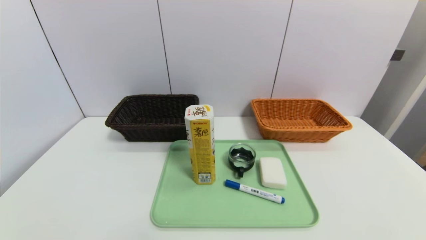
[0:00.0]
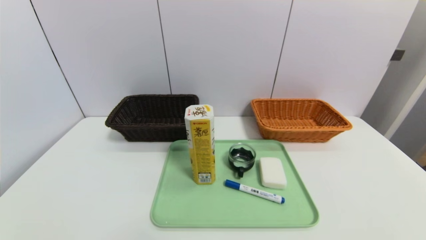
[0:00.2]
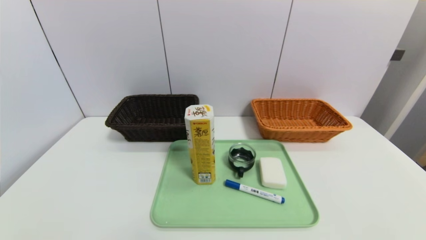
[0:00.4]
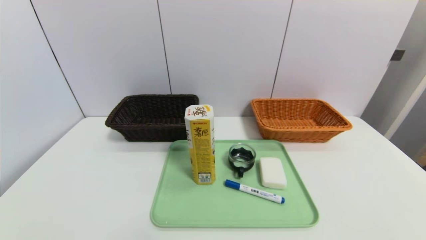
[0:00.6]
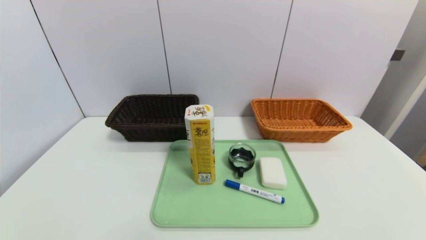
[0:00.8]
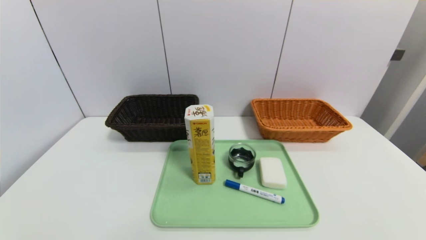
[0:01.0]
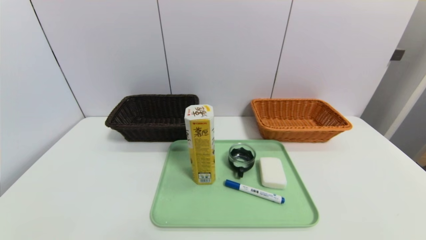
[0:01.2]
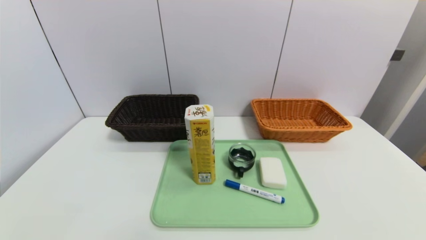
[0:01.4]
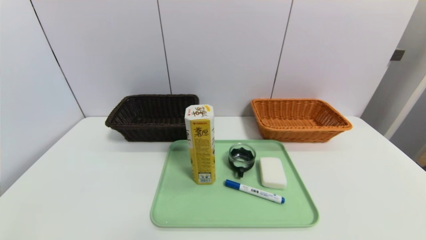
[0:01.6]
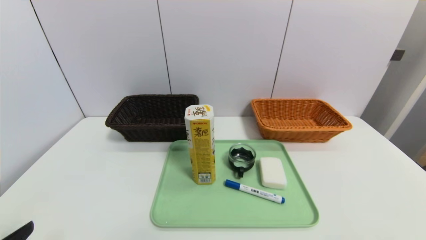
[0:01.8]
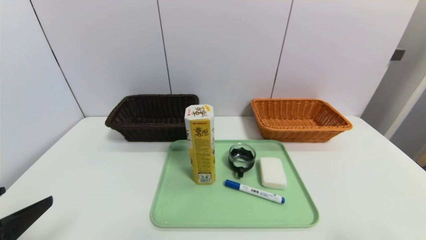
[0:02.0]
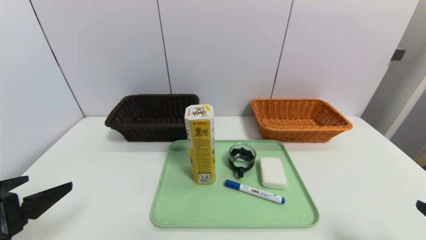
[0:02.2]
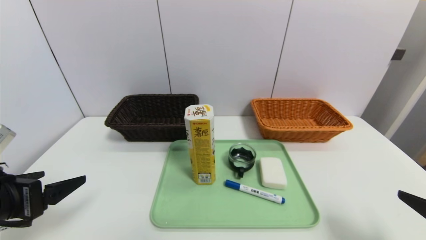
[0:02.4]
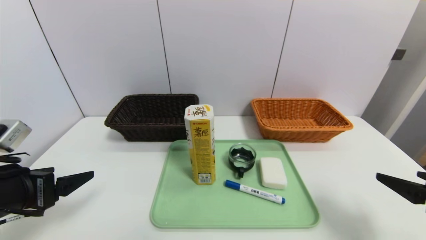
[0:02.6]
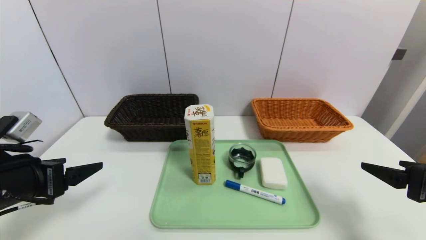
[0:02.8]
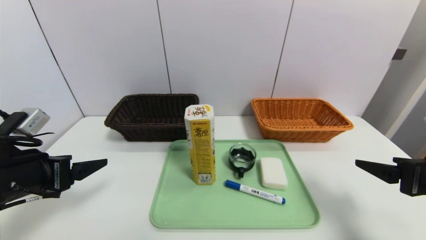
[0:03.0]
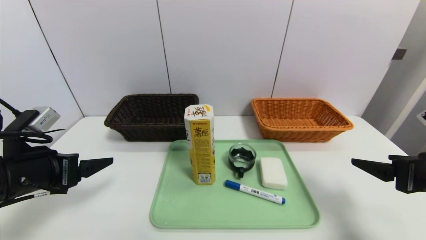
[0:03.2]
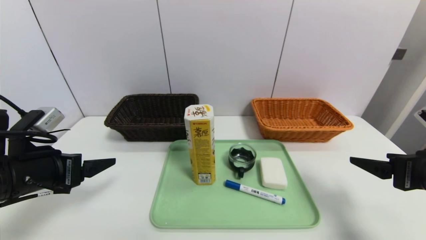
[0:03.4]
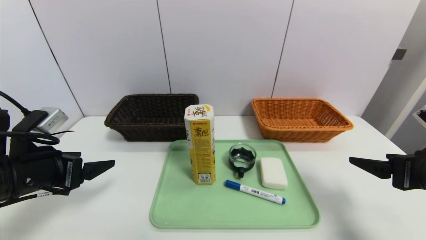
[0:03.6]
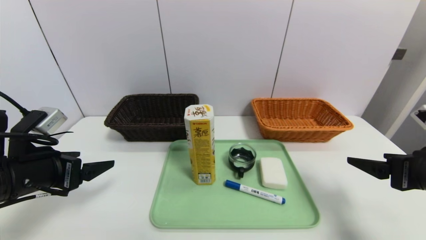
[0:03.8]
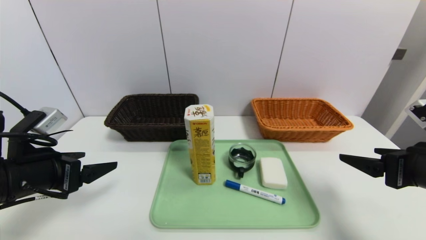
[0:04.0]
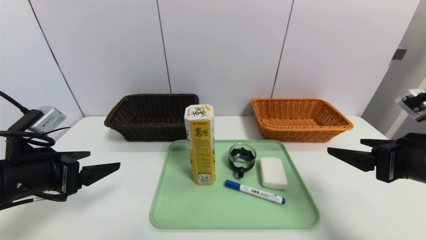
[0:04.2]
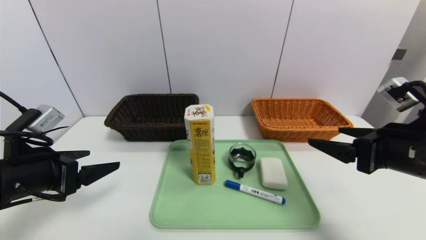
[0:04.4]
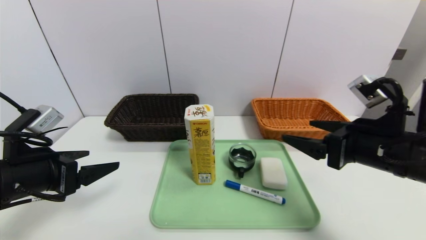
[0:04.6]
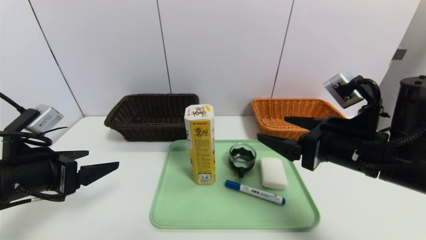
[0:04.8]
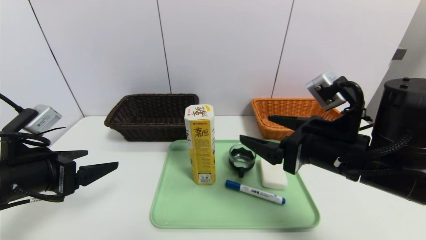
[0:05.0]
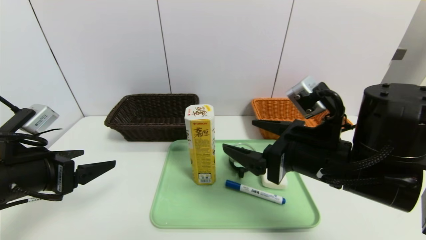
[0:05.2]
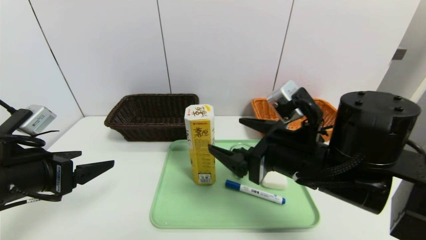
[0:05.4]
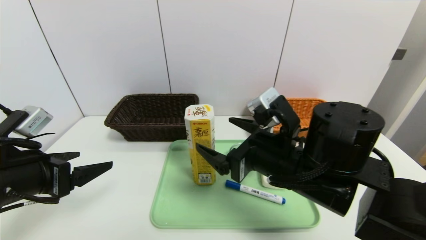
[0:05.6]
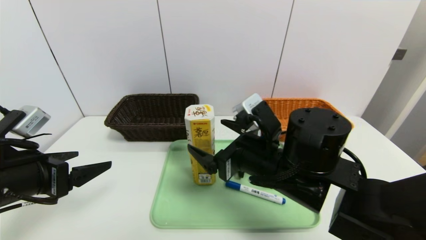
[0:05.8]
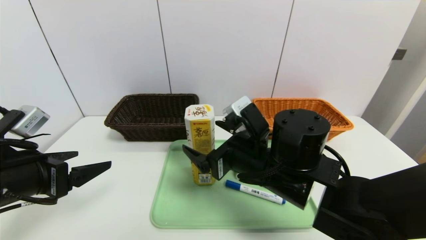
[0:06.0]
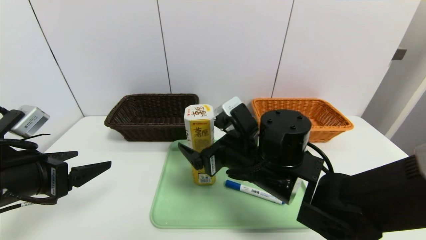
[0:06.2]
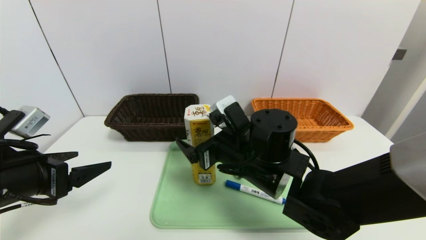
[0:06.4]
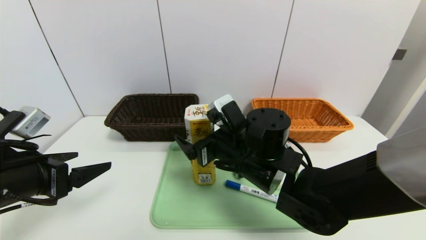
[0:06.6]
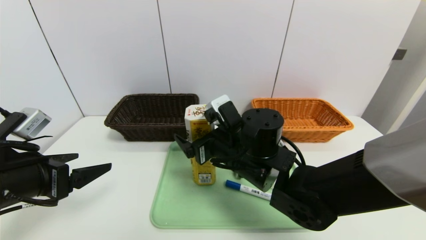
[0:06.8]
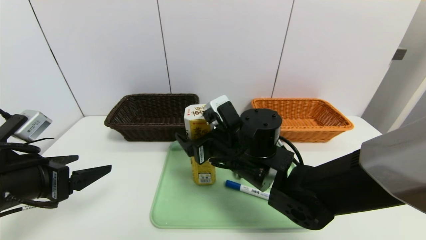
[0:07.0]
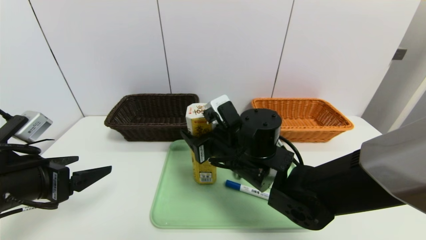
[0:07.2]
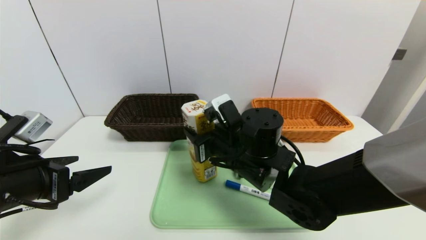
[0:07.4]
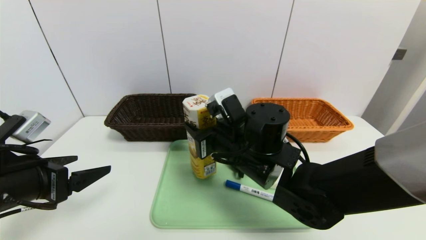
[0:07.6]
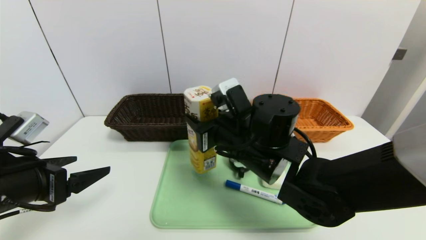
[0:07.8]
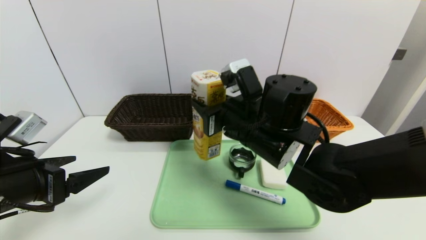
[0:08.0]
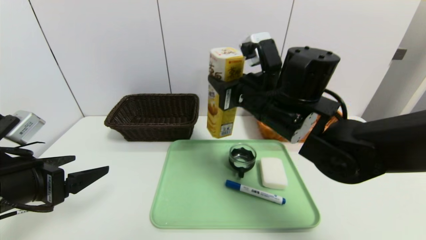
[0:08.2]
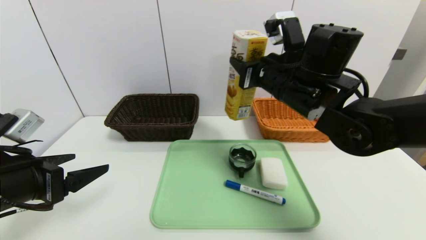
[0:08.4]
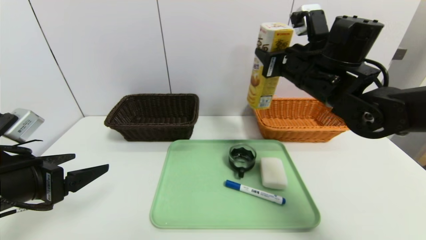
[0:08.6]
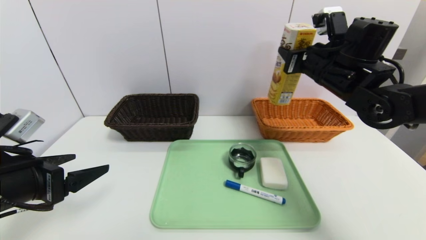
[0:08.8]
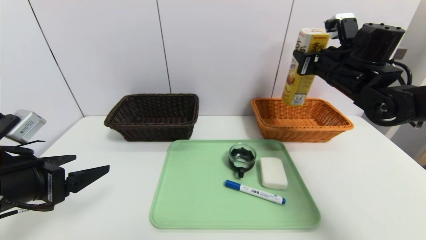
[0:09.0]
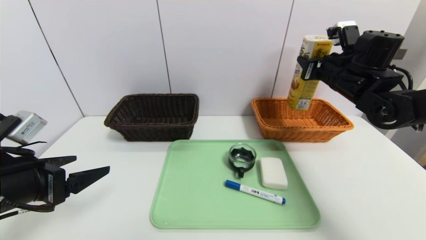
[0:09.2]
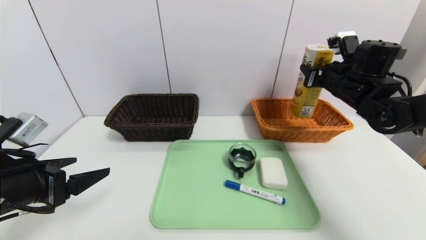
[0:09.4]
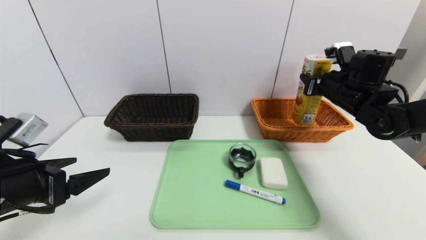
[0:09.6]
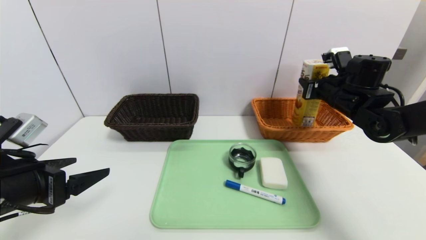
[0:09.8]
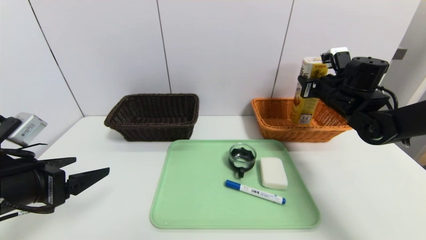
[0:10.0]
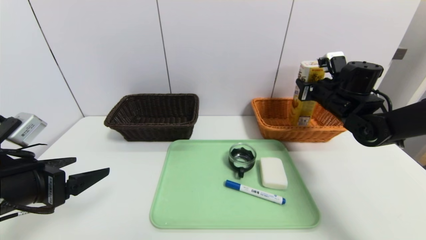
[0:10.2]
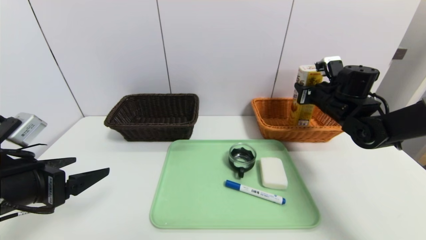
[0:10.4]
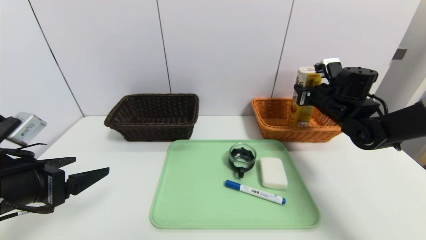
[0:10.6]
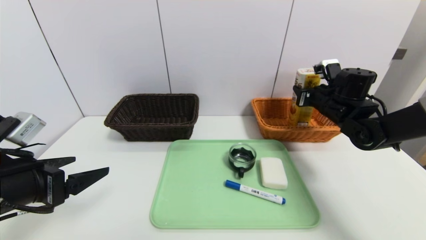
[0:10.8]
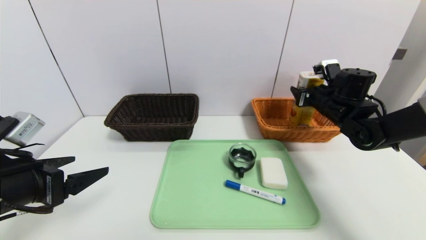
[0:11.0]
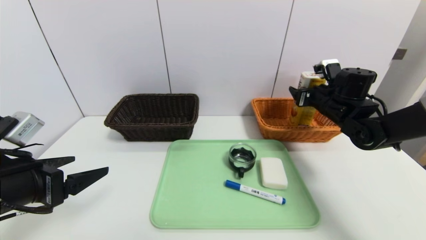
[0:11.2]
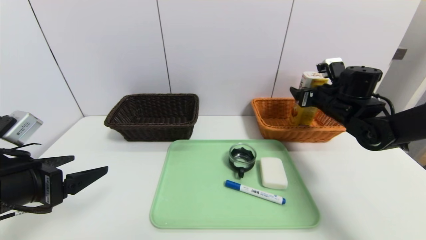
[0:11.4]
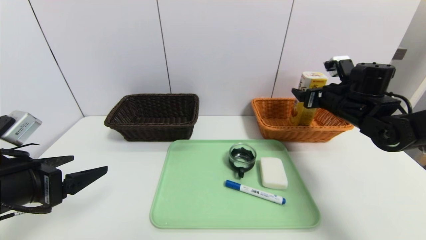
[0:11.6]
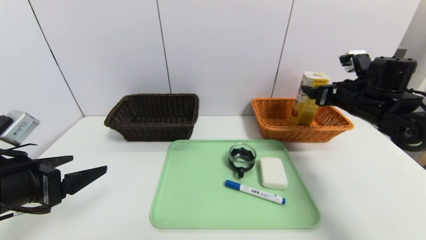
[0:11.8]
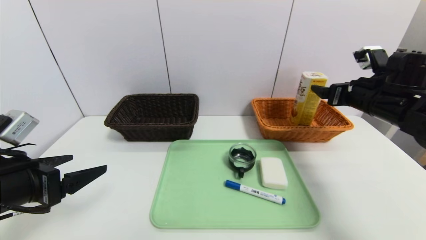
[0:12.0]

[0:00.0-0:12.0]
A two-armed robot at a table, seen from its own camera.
Task of the whole recording: place the food in the right basket with the right gripper, and place the non food items in the left basket with the left gripper.
Step, 0:00.0 to 0:11.8: Grasp the potato chips and put it in the right basket.
0:01.6 to 0:03.0: The grippers both shift forward by about 20 cm.
0:03.0 to 0:04.4: The right gripper shifts approximately 5 cm to the left.
0:04.4 to 0:06.0: The right gripper shifts approximately 20 cm to the left.
0:06.0 to 0:07.6: The right gripper closes up.
0:07.6 to 0:09.0: The right gripper is displaced to the right, forward and upward by roughly 25 cm.
0:09.0 to 0:10.4: The right gripper travels downward by about 10 cm.
0:10.4 to 0:12.0: The right gripper goes about 10 cm backward, and opens.

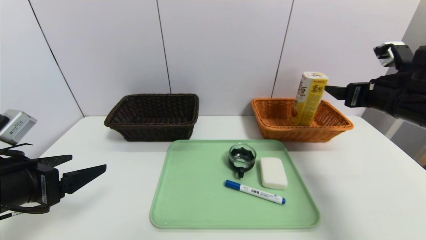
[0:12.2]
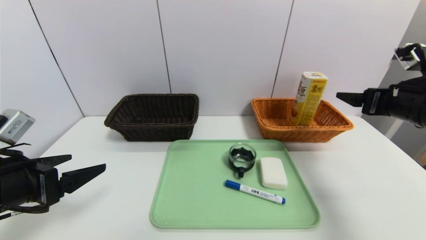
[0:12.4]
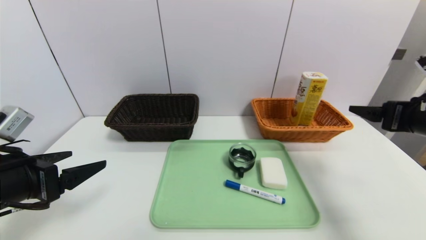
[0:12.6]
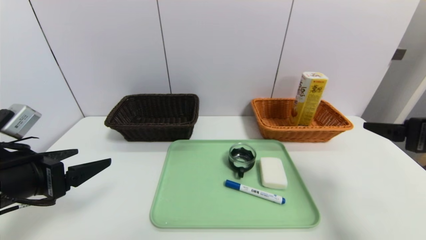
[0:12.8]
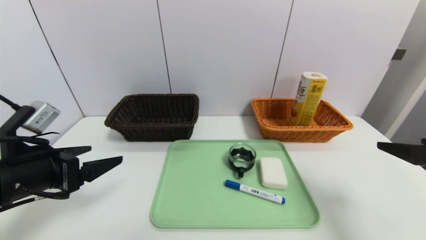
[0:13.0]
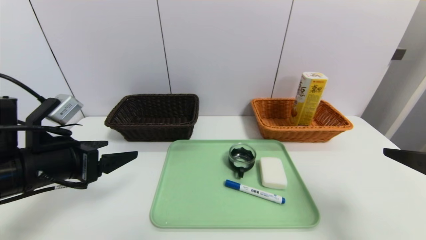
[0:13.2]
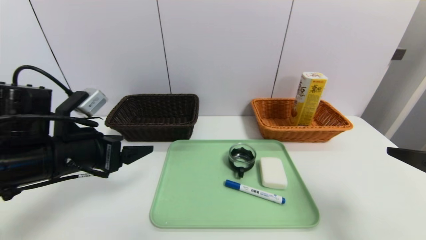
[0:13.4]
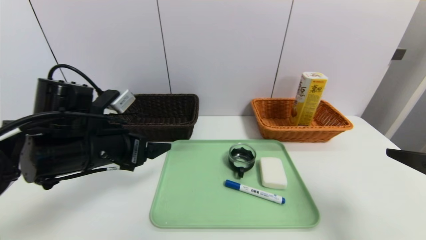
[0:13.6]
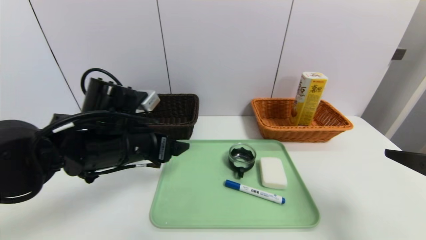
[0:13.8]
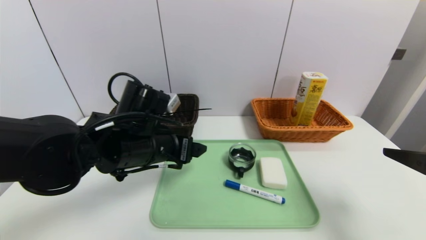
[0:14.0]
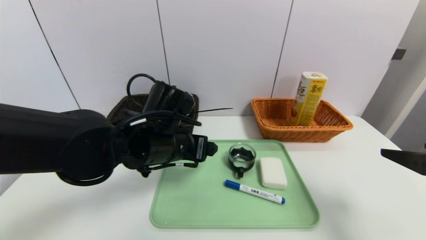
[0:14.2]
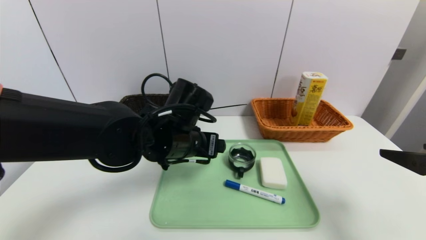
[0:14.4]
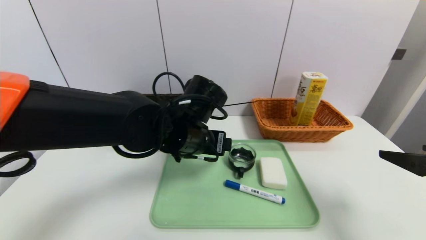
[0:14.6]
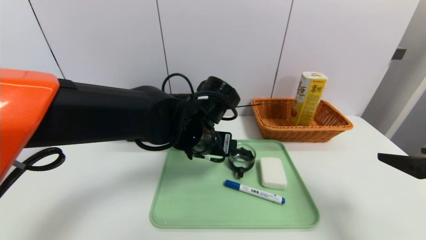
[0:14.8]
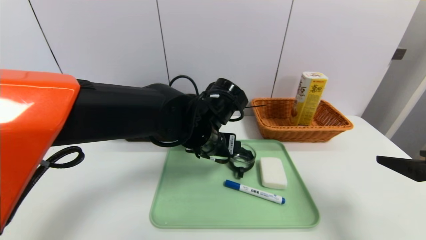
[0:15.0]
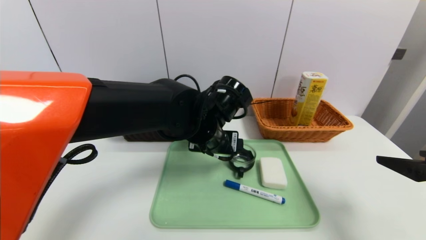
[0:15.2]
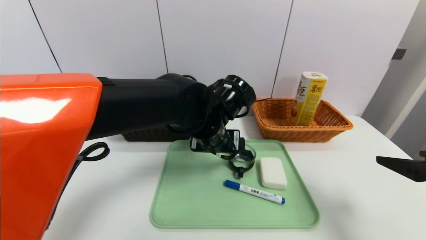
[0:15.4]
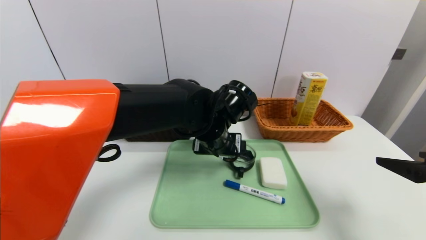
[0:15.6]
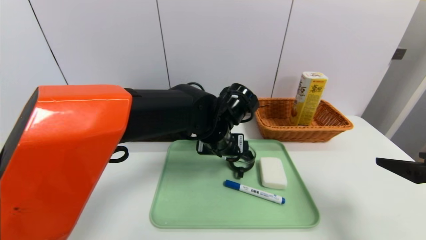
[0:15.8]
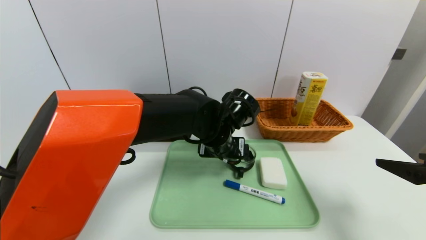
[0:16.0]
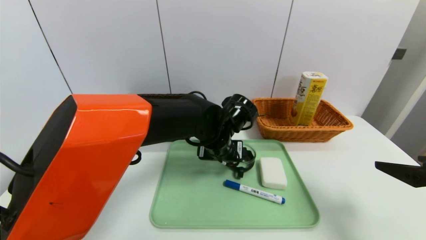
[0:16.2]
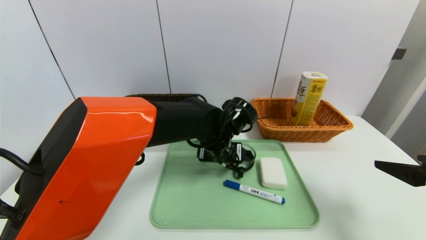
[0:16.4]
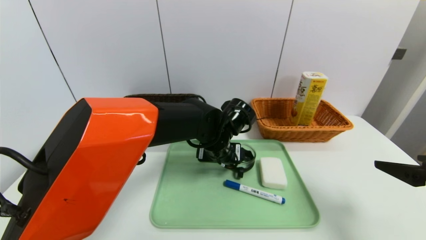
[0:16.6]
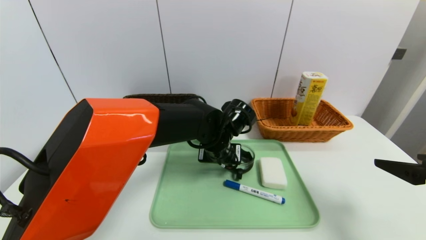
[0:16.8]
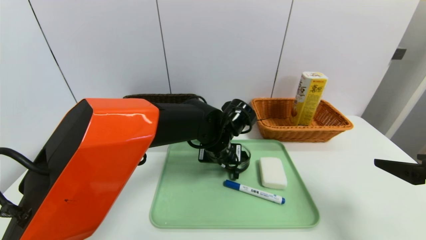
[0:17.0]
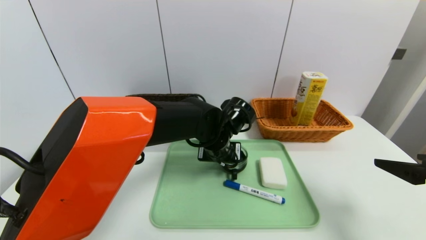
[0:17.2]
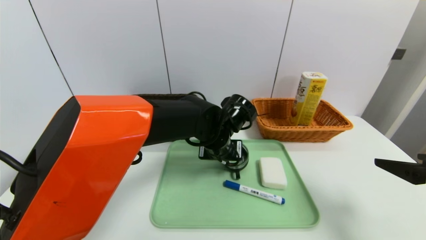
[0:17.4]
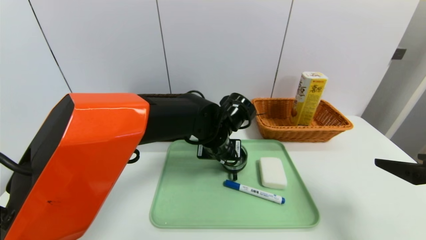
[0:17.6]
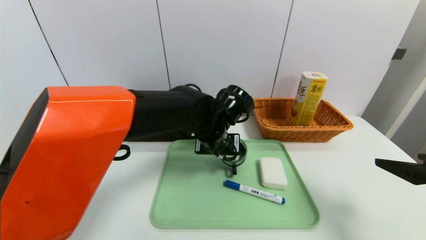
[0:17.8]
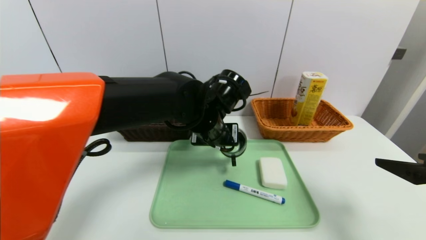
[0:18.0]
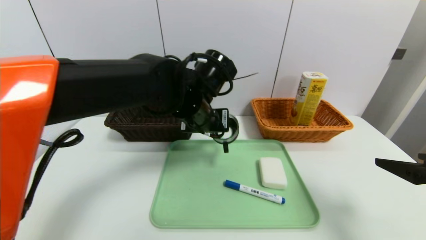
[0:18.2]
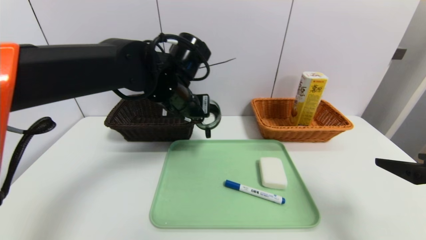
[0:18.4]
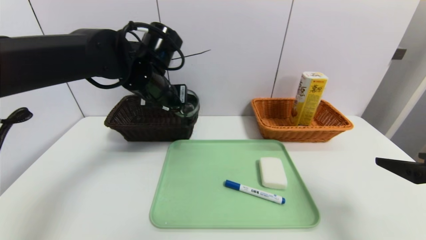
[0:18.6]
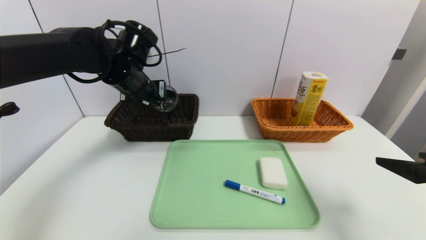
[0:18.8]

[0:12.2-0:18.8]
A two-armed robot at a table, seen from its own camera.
Task of the whole recording: place the food in the right basket with the right gripper, and place the non food items in the left basket with the left gripper.
0:12.2 to 0:13.8: The left gripper shifts about 15 cm to the right and forward; the right gripper goes roughly 15 cm backward.
0:13.8 to 0:15.4: The left gripper goes some 15 cm to the right.
0:15.4 to 0:17.2: The left gripper goes roughly 5 cm downward, and closes up.
0:17.2 to 0:18.8: The left gripper goes approximately 20 cm to the left and upward.
